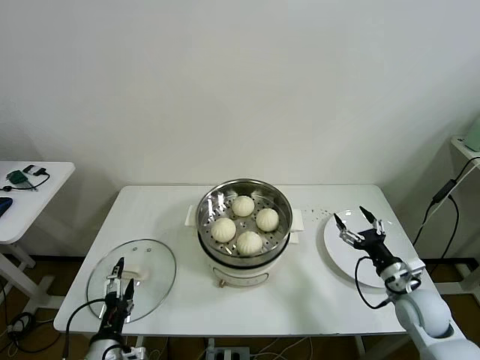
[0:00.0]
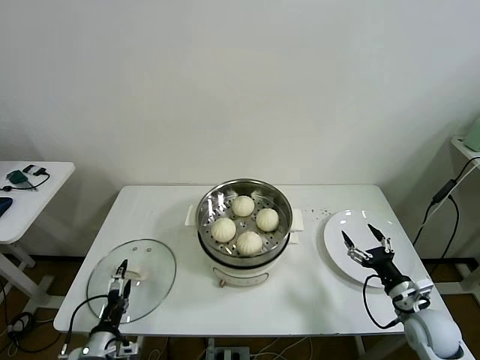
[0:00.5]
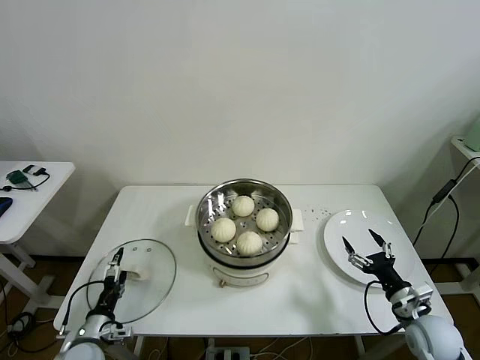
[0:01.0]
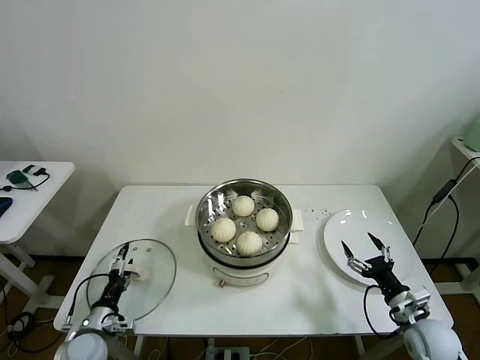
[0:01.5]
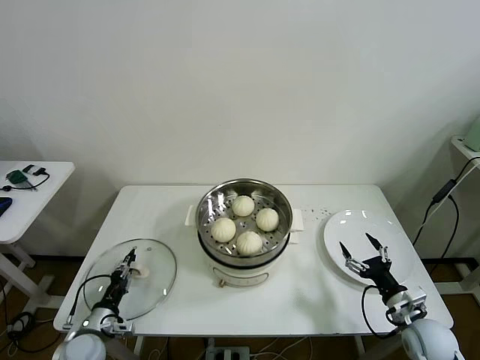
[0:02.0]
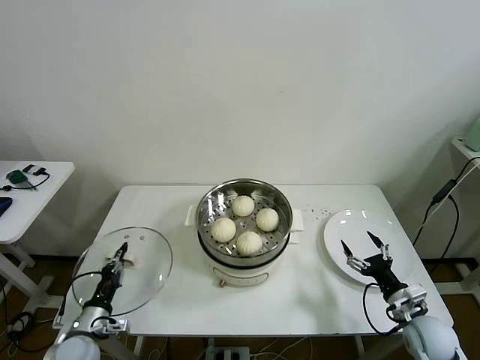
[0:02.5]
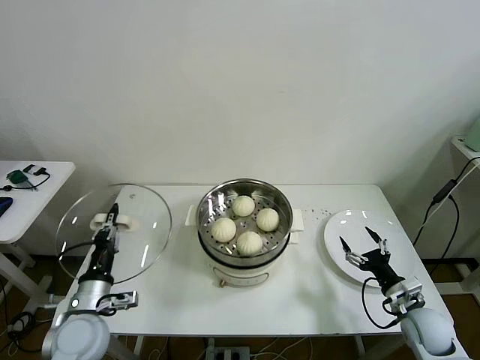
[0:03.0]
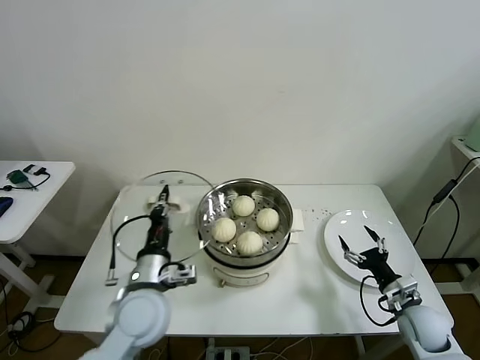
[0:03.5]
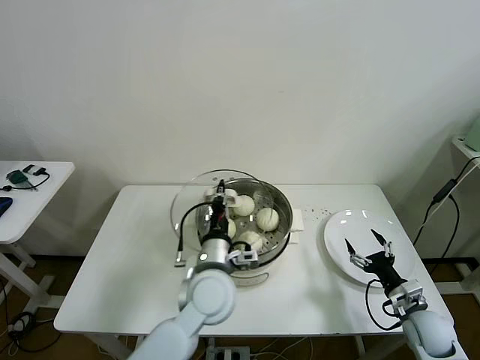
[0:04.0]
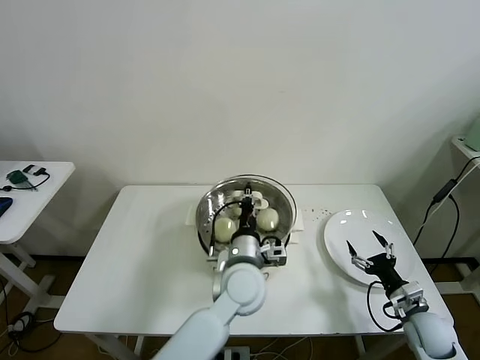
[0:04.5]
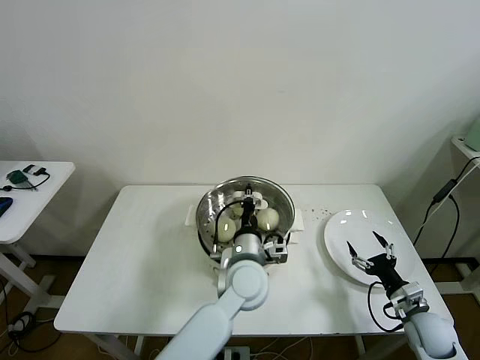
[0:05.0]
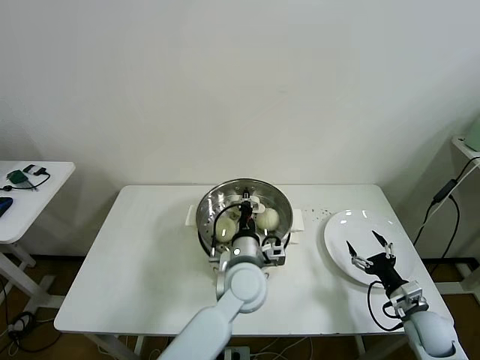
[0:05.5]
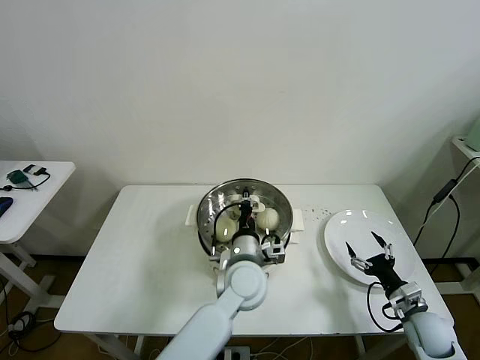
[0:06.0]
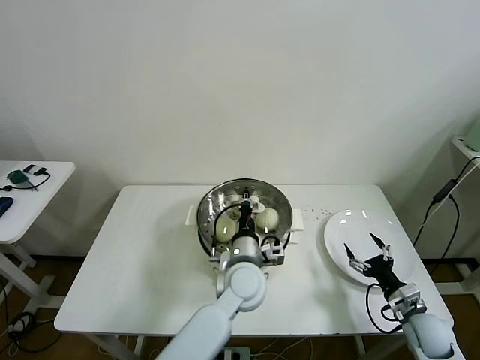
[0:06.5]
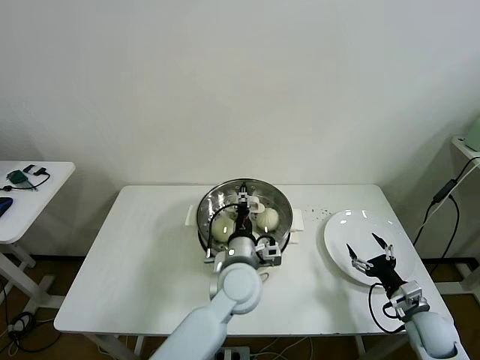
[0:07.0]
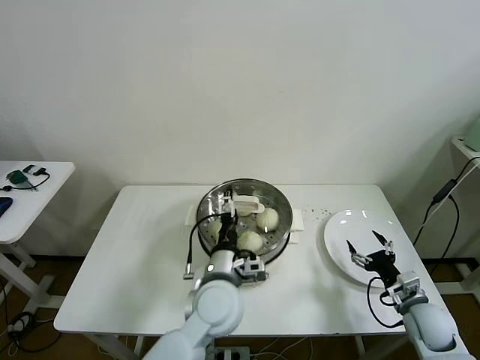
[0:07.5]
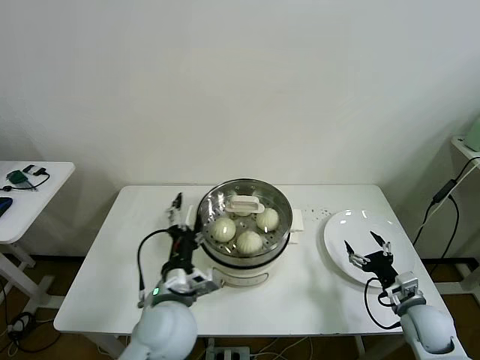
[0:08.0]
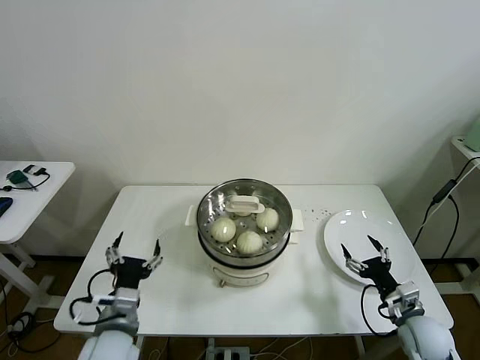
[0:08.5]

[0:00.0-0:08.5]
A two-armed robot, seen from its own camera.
Task of the whole recording: take steamed baozi put them in steamer then cover it.
Step, 0:00.0 to 0:02.0: Grasp the pot lid with left gripper.
Step, 0:02.5 to 0:07.0: Place the pot lid on the steamer with left gripper.
0:00.0 to 0:02.0: The left gripper heads to the left, downward and forward, covering approximately 15 cm, and closes its fingers; the right gripper ends up some 5 cm from where it was.
0:02.0 to 0:04.0: The left gripper travels to the right and upward by some 35 cm, and closes its fingers.
0:04.0 to 0:06.5: The left gripper goes about 10 cm to the right.
0:06.5 to 0:08.5: The left gripper is displaced to the left and backward by about 25 cm, and opens up.
